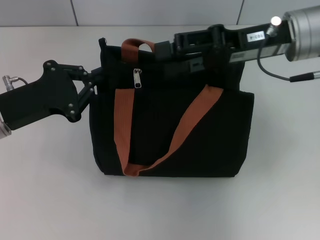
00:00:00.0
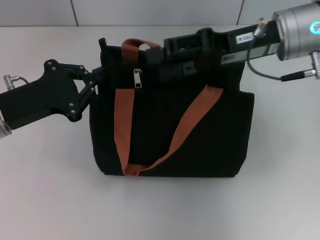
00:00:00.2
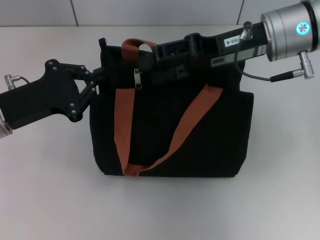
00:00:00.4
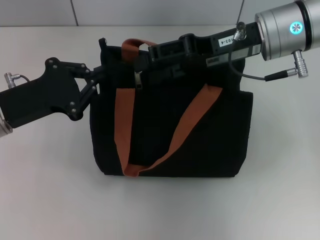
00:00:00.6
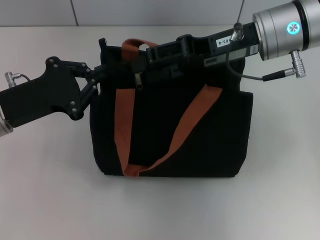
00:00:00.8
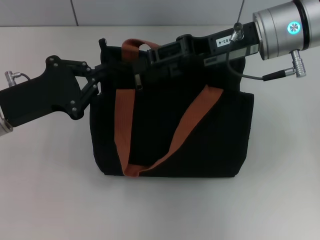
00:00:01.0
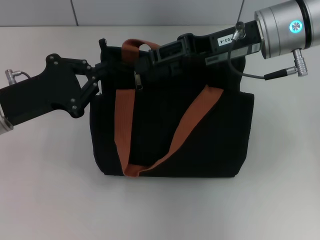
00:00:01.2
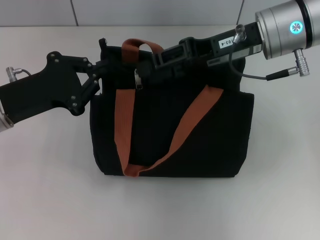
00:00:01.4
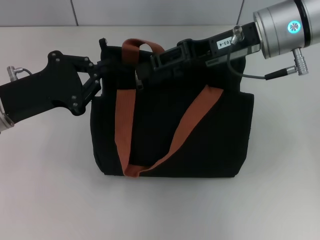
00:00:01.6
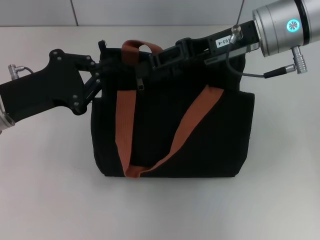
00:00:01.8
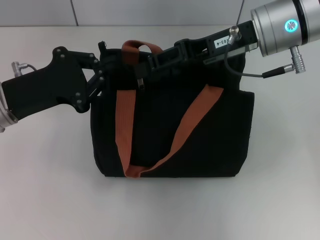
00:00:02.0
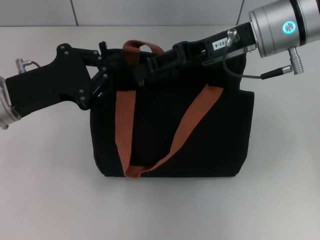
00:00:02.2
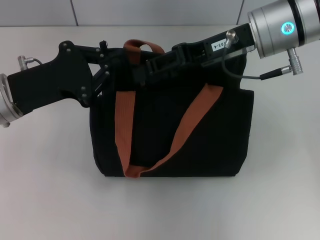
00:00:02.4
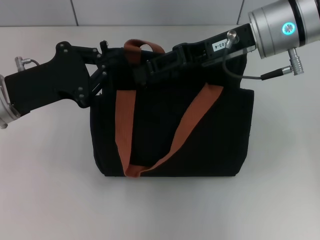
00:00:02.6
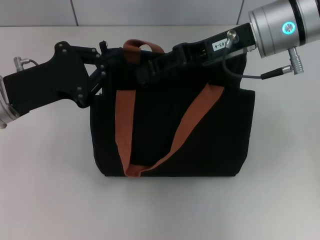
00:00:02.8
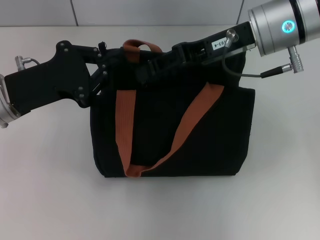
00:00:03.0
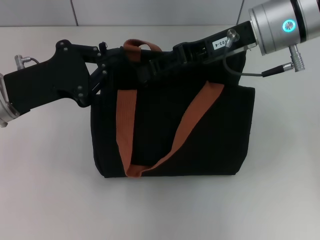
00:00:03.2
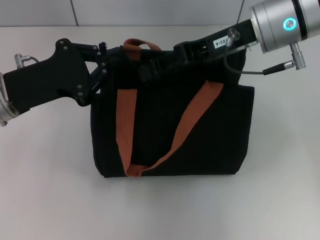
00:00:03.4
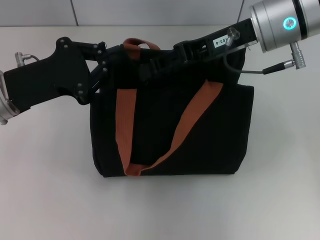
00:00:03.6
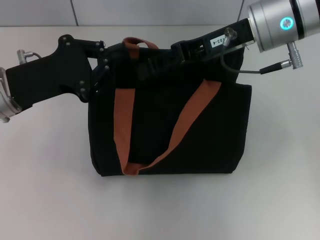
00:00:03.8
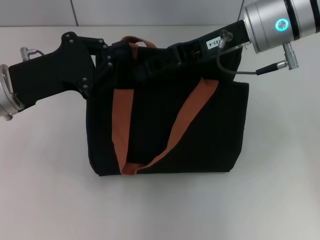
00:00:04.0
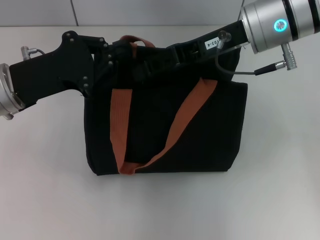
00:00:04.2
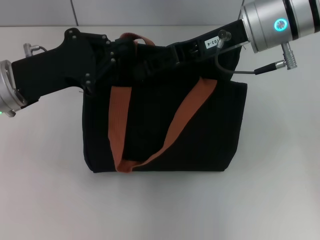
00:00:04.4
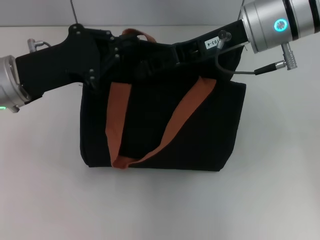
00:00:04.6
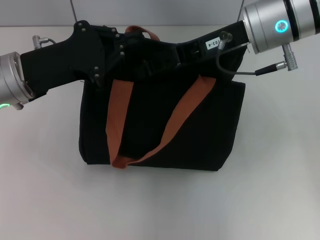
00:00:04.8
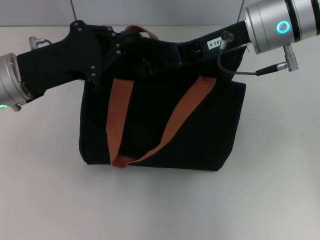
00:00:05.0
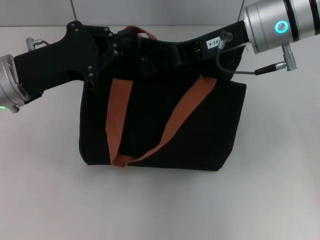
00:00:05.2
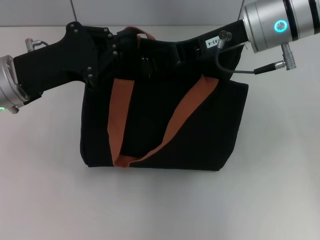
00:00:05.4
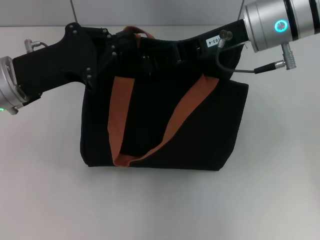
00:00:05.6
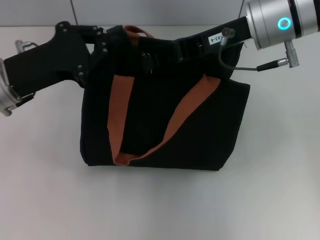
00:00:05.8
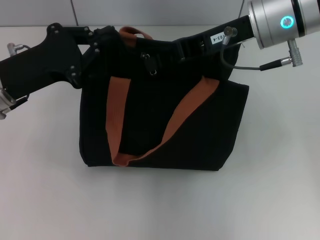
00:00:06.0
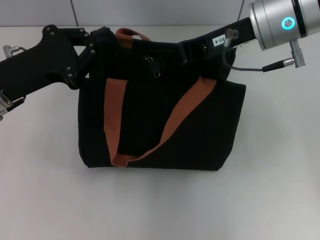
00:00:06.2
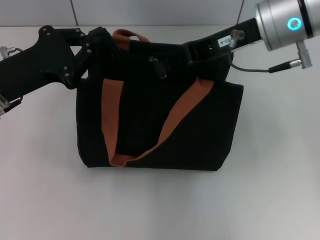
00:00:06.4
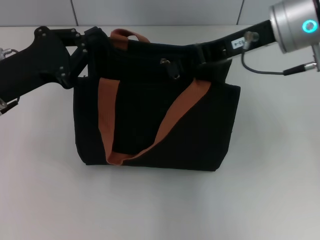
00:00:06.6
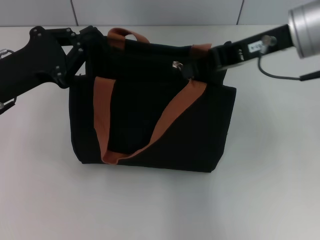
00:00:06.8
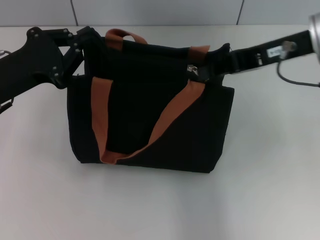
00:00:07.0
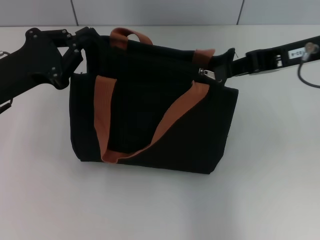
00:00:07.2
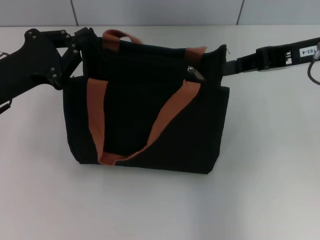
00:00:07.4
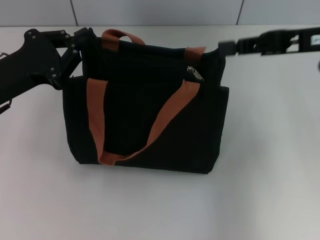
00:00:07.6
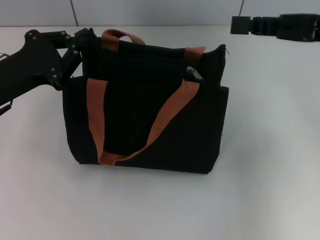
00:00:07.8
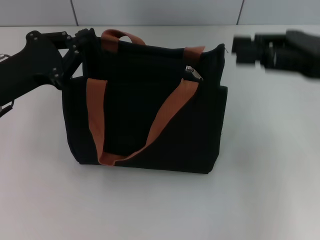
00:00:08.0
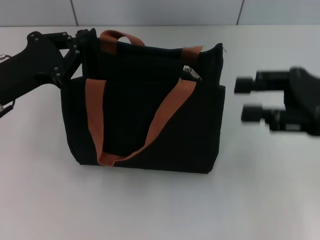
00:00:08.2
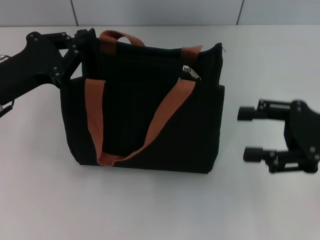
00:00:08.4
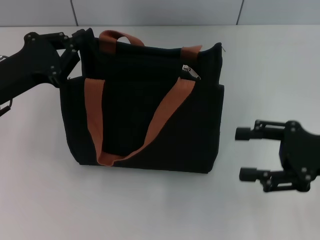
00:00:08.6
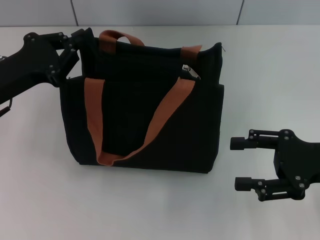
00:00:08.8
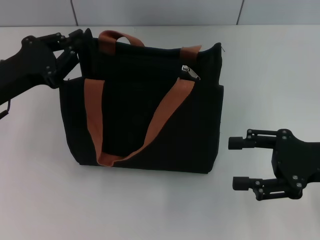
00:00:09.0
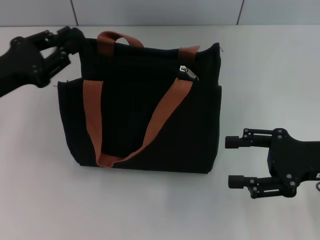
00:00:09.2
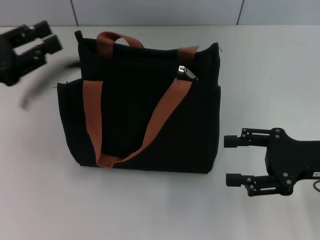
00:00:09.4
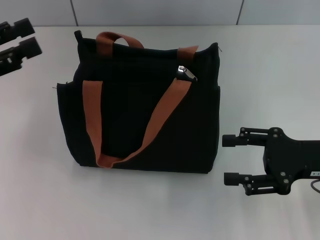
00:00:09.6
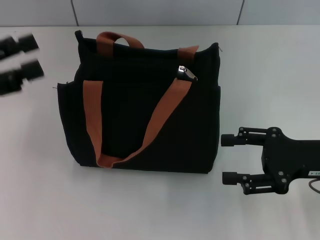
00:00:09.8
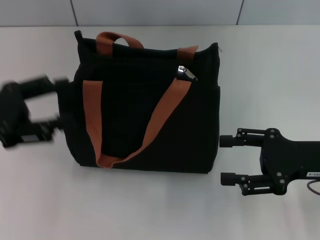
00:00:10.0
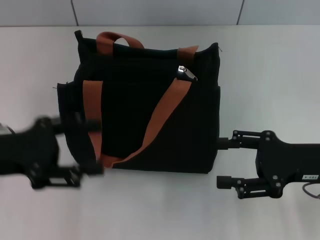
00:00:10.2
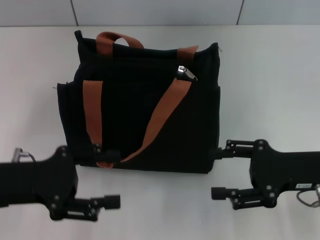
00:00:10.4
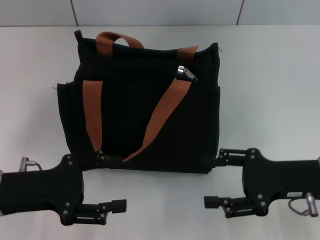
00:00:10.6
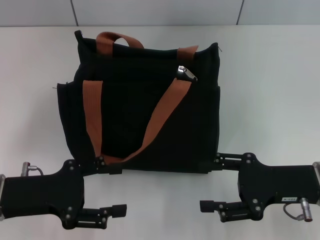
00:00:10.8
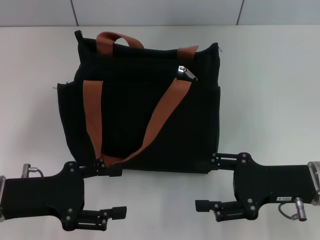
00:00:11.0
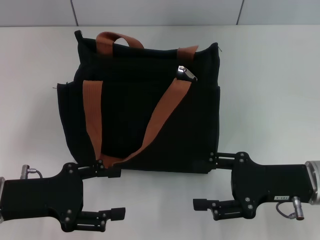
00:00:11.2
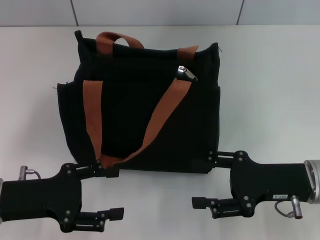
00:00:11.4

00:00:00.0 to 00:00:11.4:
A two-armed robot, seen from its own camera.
Step, 00:00:00.0 to 00:00:08.0: Pull up the zipper with your right hand.
Step, 00:00:08.2 to 00:00:09.4: Grab the zipper with your left hand.
00:00:00.0 to 00:00:02.8: The grippers stay close to where they were, moving slightly.
00:00:02.8 to 00:00:04.2: The grippers move only a little.
00:00:04.2 to 00:00:05.6: The right gripper closes.
00:00:05.6 to 00:00:07.2: The right gripper is displaced to the right by approximately 10 cm.
00:00:07.2 to 00:00:08.6: The right gripper is displaced downward, backward and to the right by some 15 cm, and opens up.
00:00:08.6 to 00:00:10.0: The left gripper shifts by about 5 cm, and opens its fingers.
00:00:10.0 to 00:00:11.4: The left gripper shifts some 10 cm downward; the right gripper shifts by about 5 cm.
